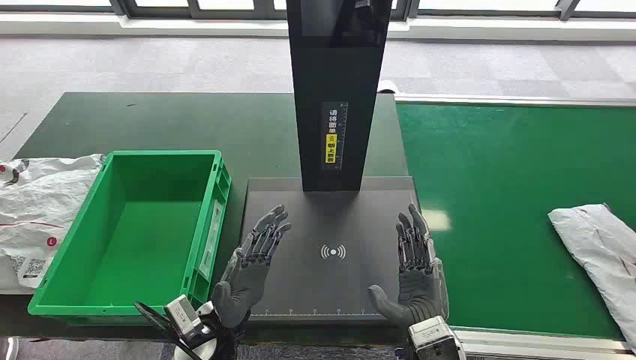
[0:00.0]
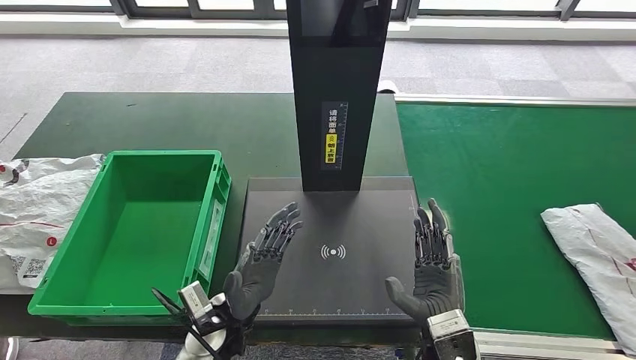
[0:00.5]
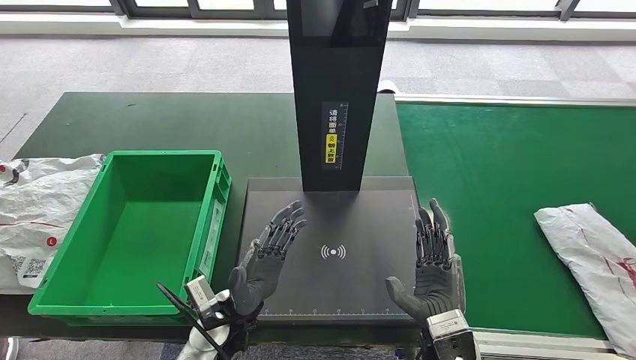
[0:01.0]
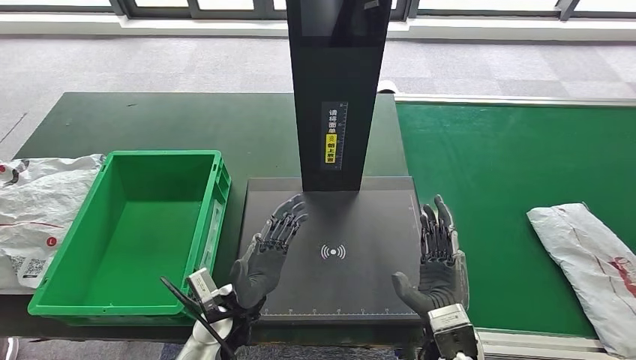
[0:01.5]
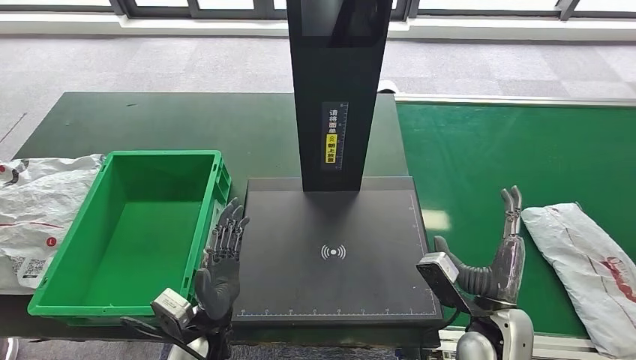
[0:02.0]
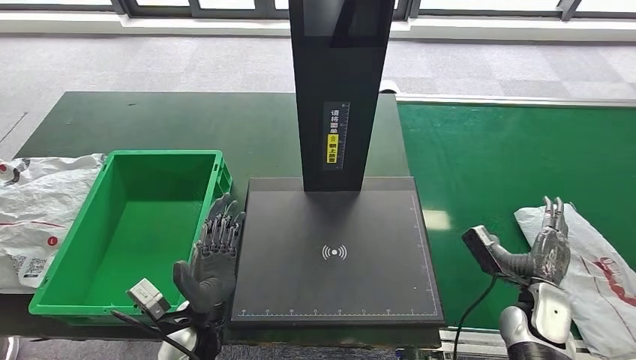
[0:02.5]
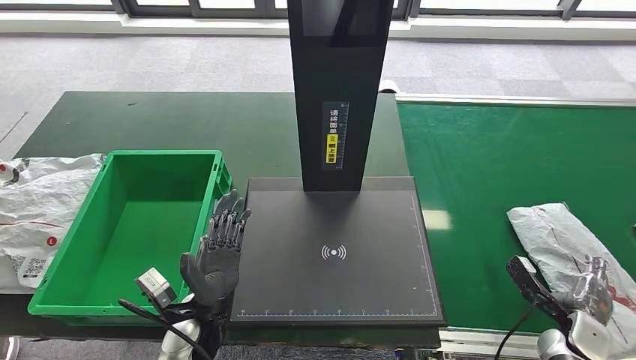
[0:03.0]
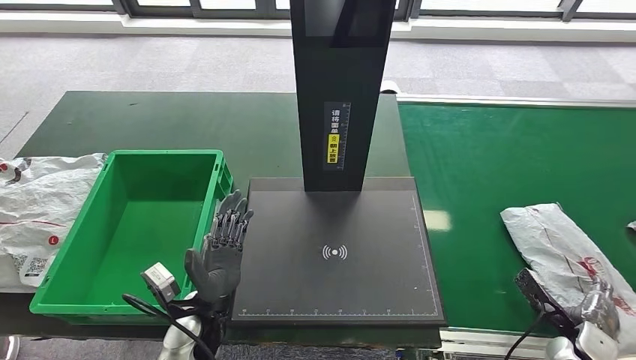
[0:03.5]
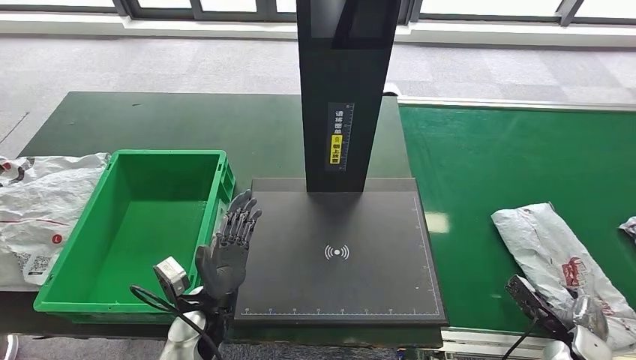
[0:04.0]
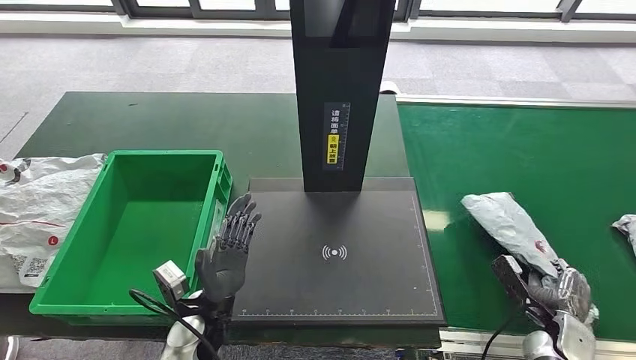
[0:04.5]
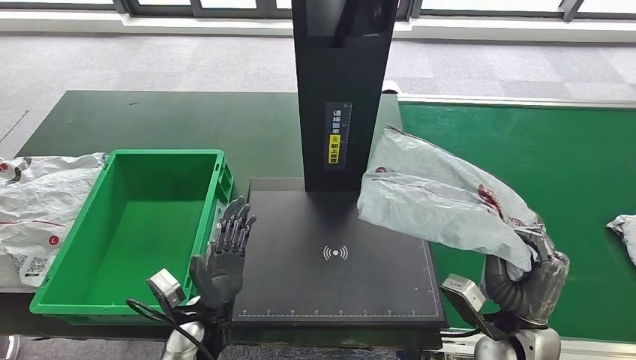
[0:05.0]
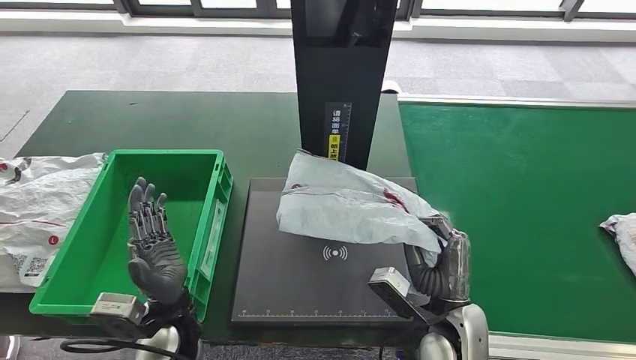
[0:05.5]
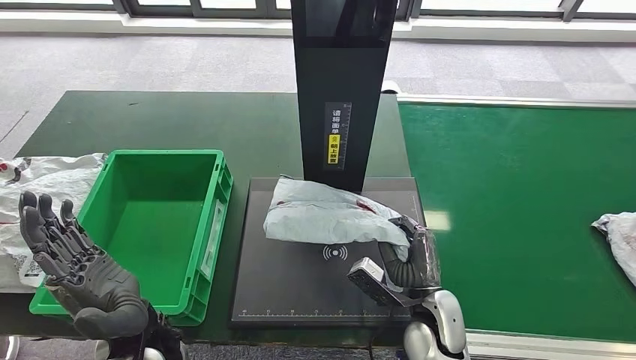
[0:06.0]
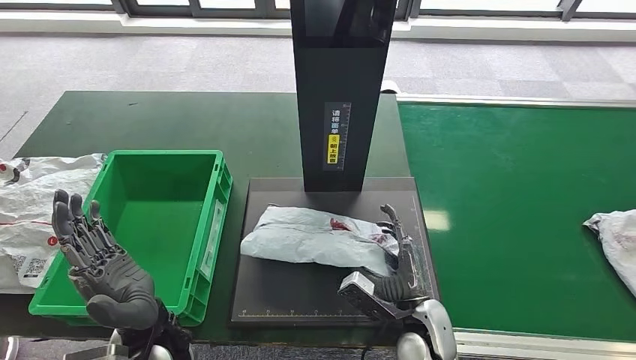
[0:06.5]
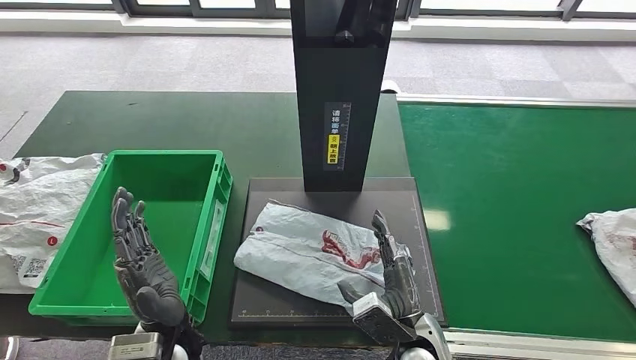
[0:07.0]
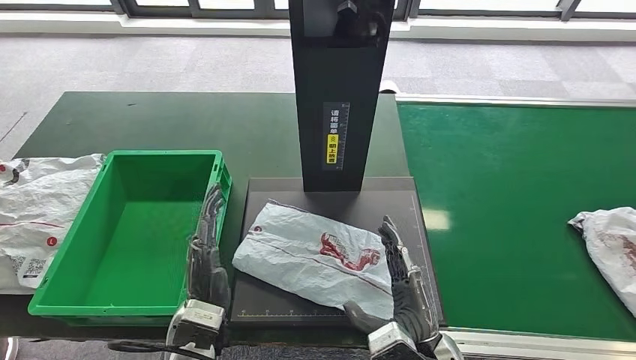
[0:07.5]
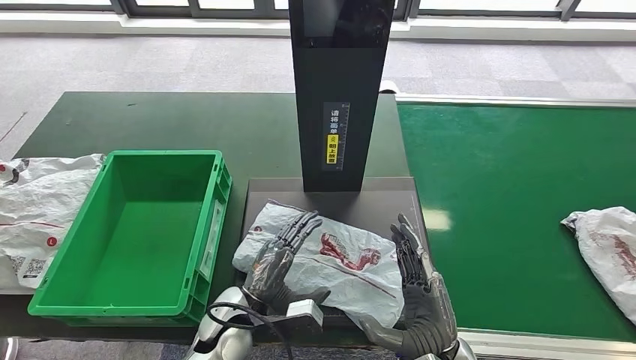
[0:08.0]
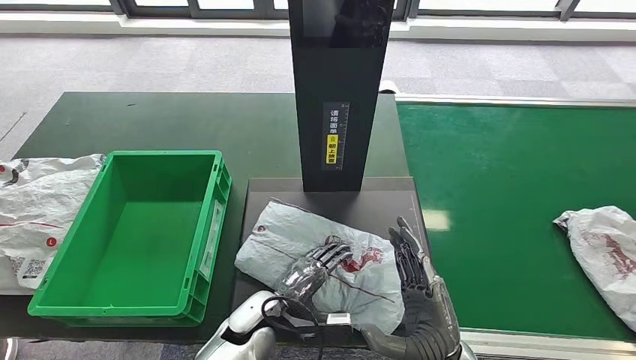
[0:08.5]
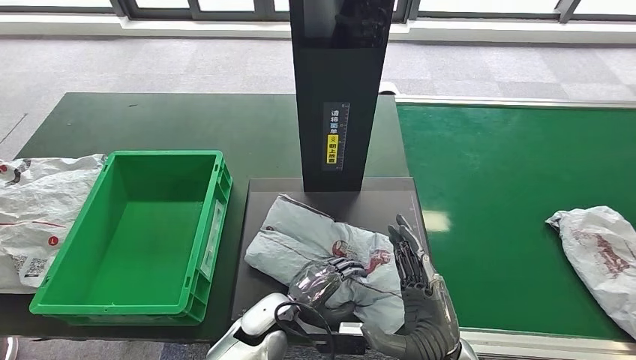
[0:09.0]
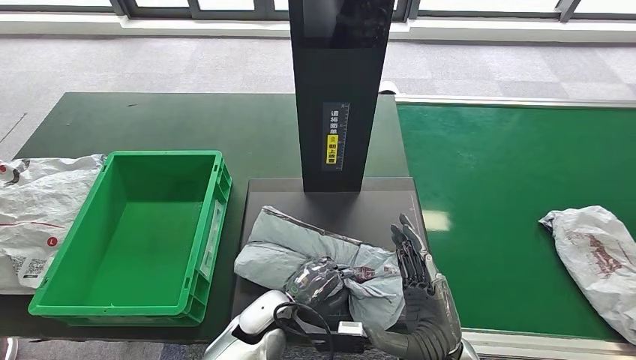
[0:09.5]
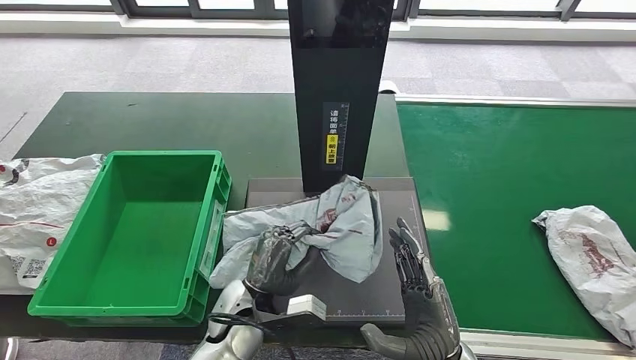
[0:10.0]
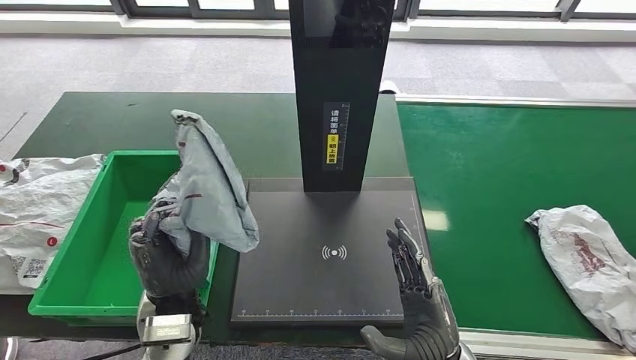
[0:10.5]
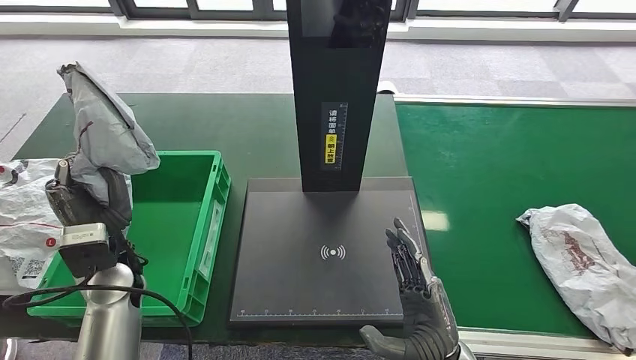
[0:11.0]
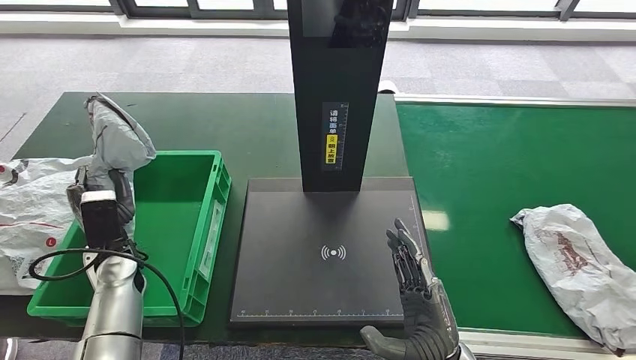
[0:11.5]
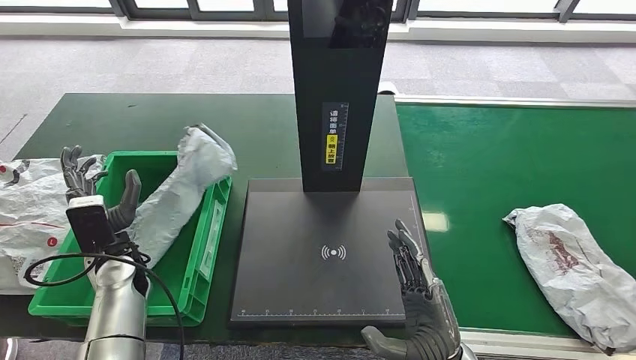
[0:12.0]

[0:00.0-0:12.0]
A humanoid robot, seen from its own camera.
Step, 0:00.0 to 0:04.5: Take the parcel off the conveyor belt.
Step, 0:05.0 to 0:08.0: Place the parcel onto the inbound machine.
Step, 0:08.5 to 0:11.0: Pick up the parcel from the inbound machine.
0:06.0 to 0:08.0: The left hand is displaced downward and to the right by about 10 cm. Meanwhile the right hand goes roughly 10 cm backward and upward.

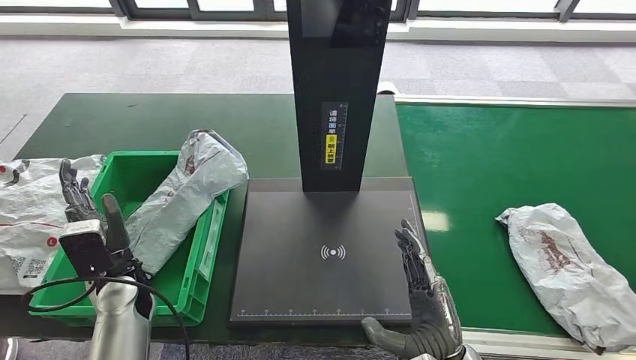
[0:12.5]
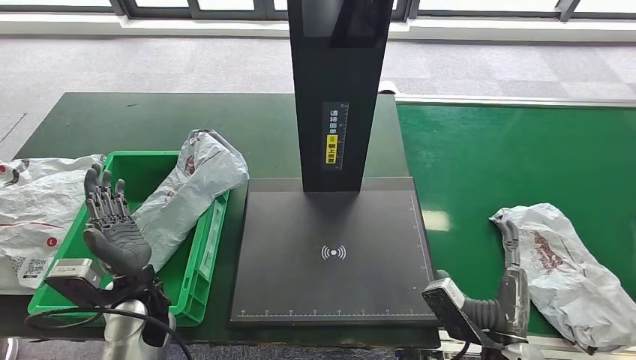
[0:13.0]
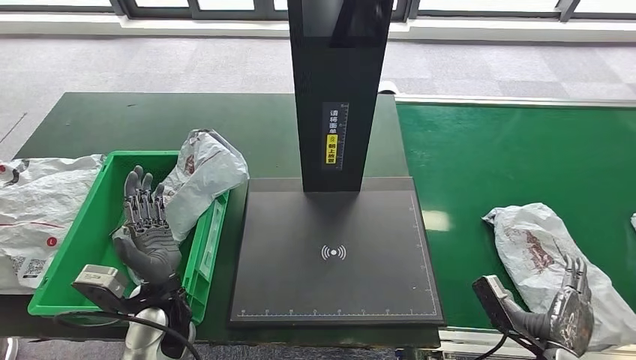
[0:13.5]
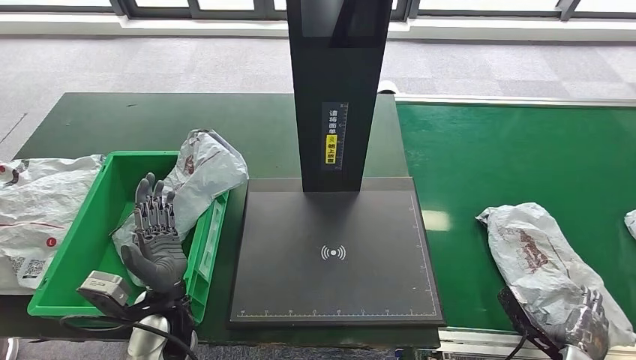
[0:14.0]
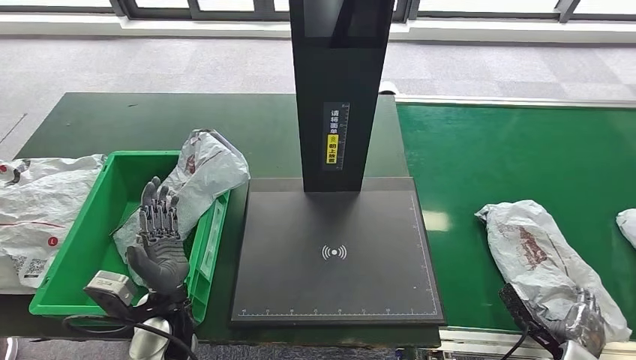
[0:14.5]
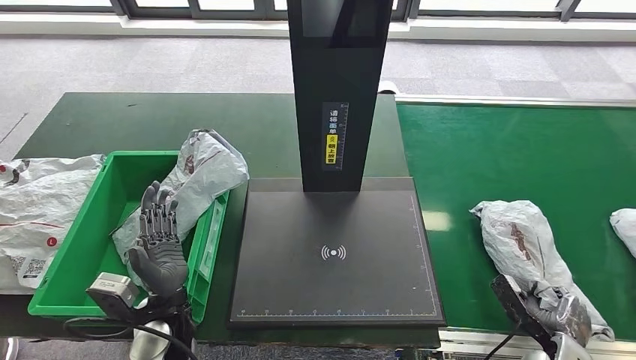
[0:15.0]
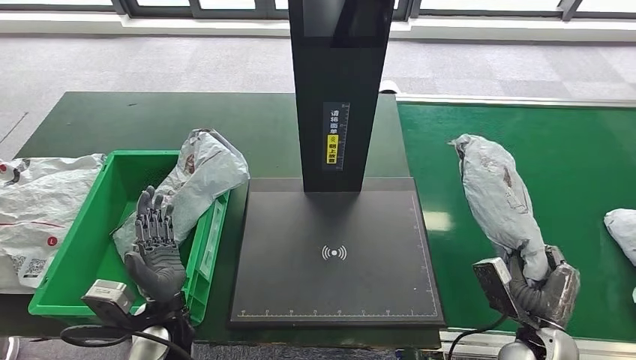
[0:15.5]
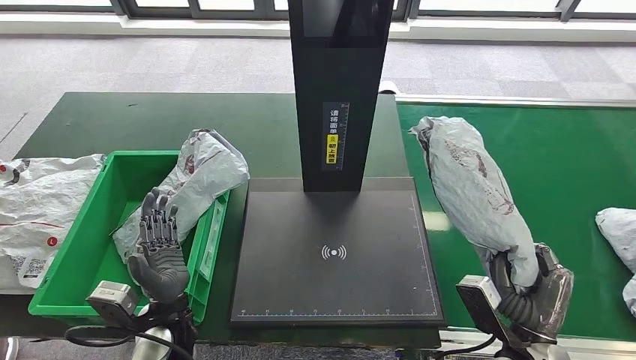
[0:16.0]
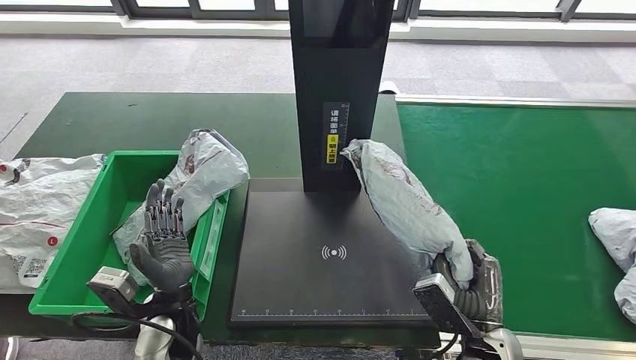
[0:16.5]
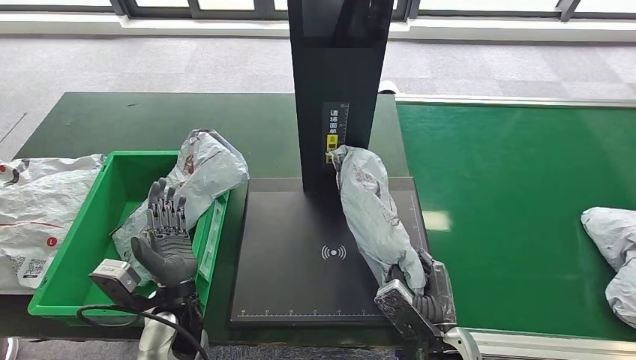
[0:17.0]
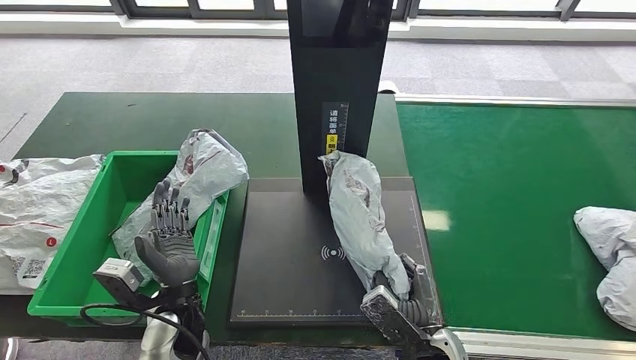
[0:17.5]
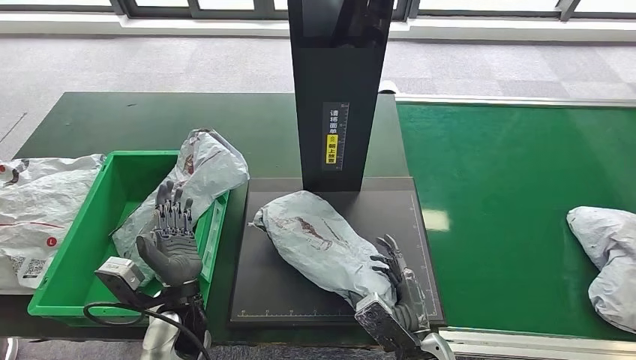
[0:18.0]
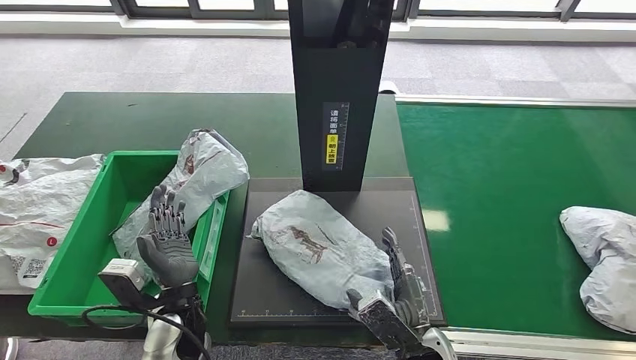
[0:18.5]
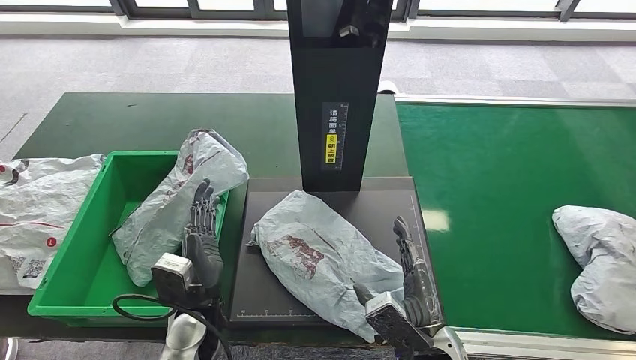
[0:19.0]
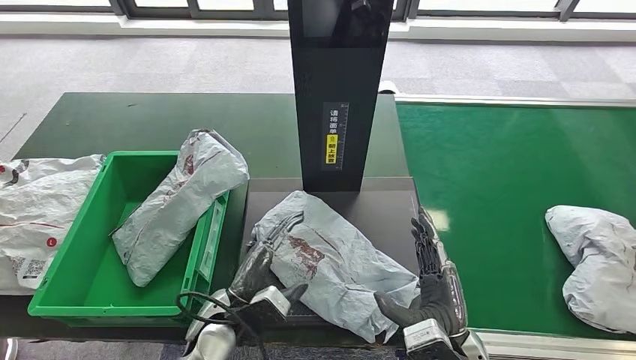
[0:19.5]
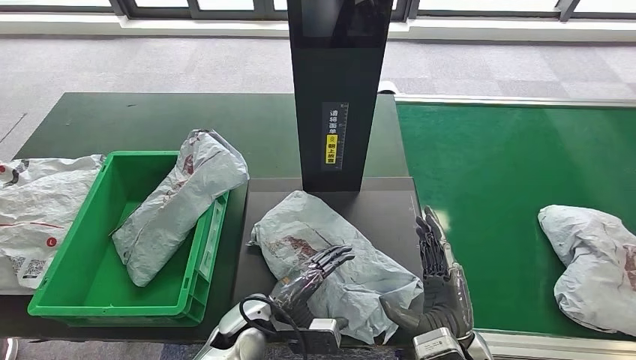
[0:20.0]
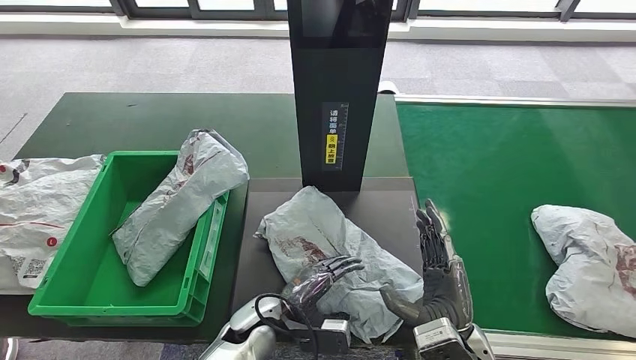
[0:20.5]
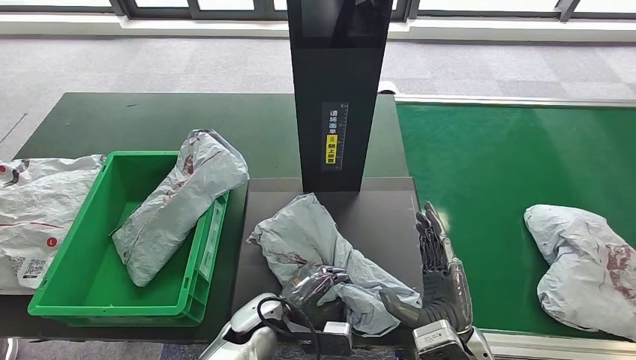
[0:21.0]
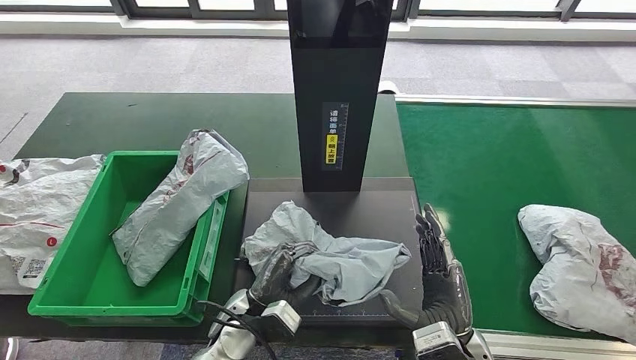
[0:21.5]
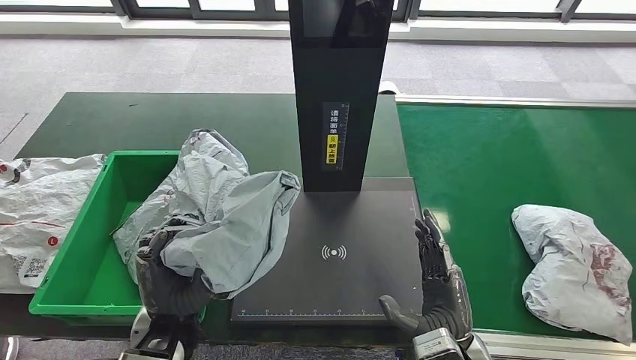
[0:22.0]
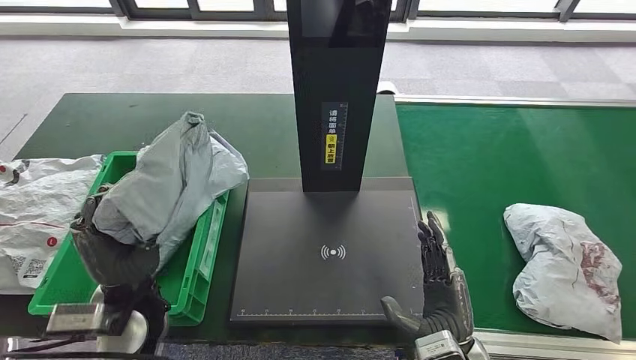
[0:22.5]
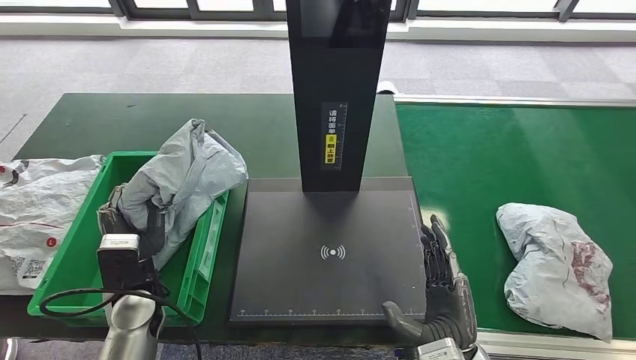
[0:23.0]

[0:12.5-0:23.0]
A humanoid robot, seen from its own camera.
Step, 0:12.5 to 0:13.5: Put the parcel inside the courier box.
Step, 0:14.0 to 0:15.5: Pick up the parcel from the conveyor belt.
Step, 0:16.5 to 0:18.5: Place the parcel onto the inbound machine.
Step, 0:19.5 to 0:22.0: Pick up the parcel from the inbound machine.
0:12.5 to 0:14.5: The left hand travels to the right and backward by roughly 10 cm. The right hand heads to the right and downward, covering some 25 cm.
0:14.5 to 0:16.5: The right hand travels to the left and upward by about 20 cm.
0:19.0 to 0:21.0: The left hand shifts approximately 10 cm to the right and downward.
